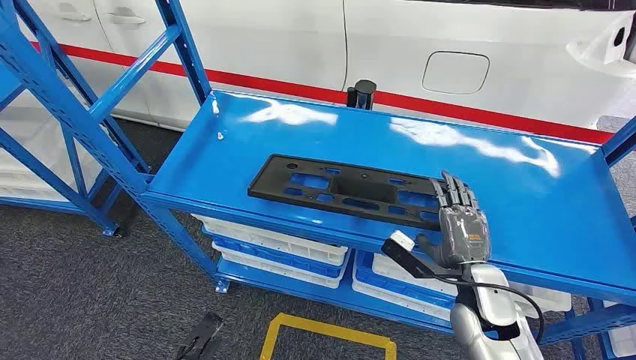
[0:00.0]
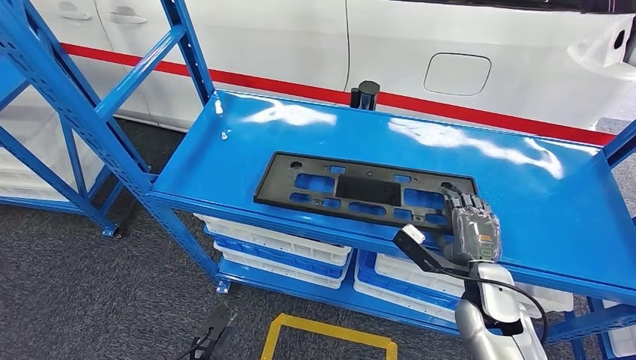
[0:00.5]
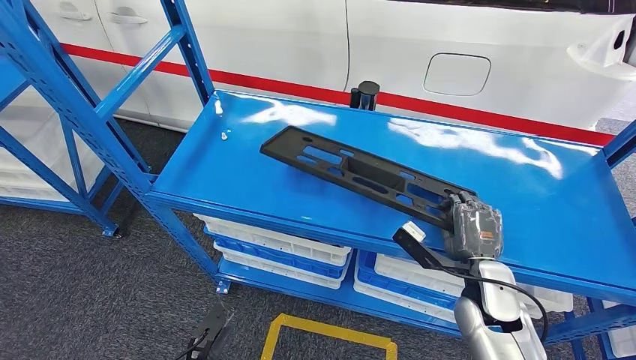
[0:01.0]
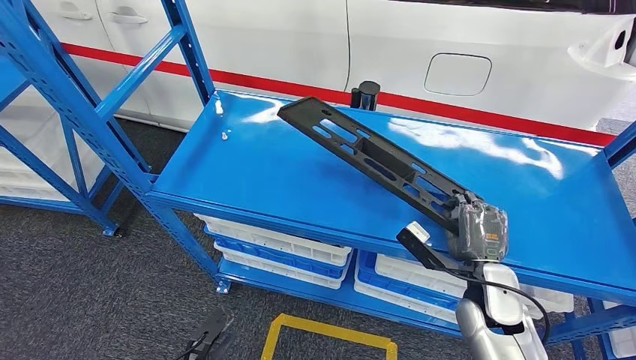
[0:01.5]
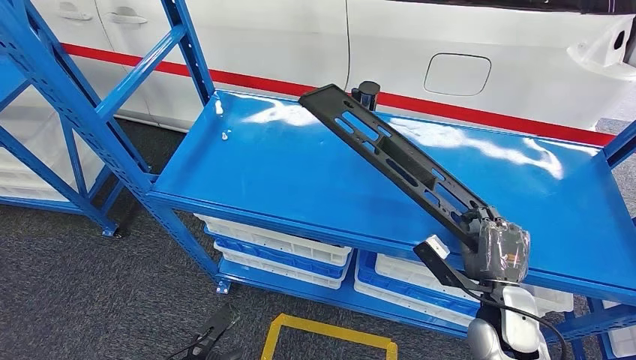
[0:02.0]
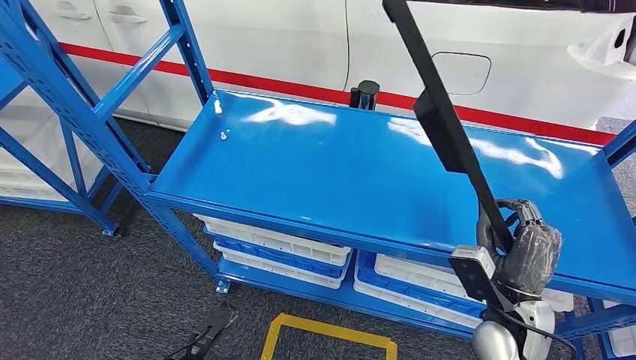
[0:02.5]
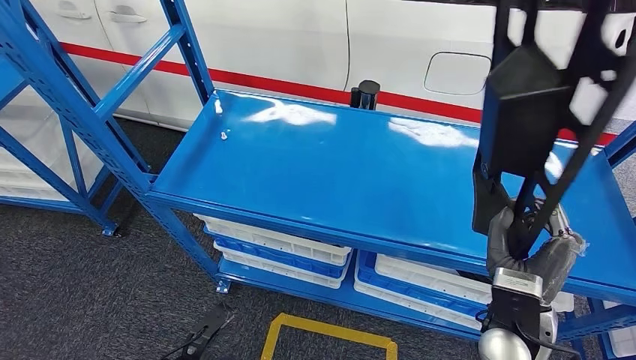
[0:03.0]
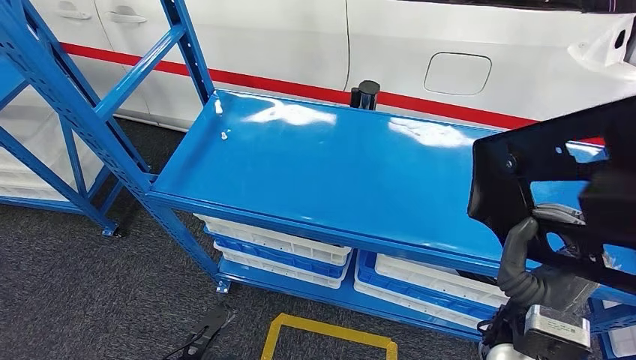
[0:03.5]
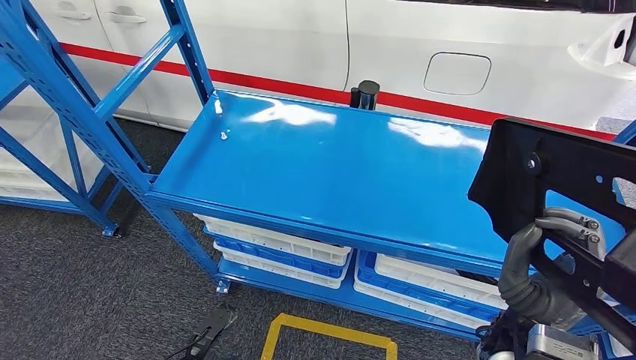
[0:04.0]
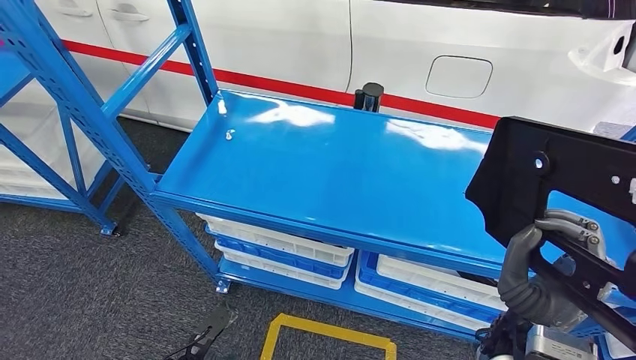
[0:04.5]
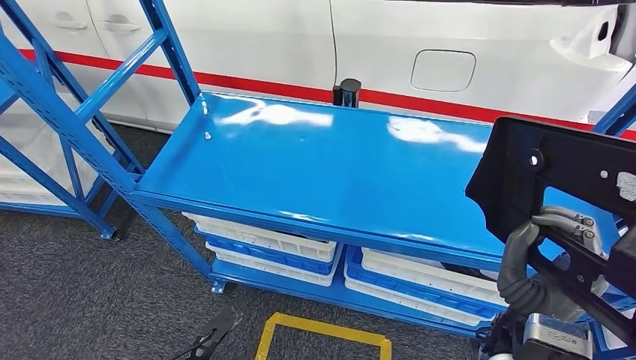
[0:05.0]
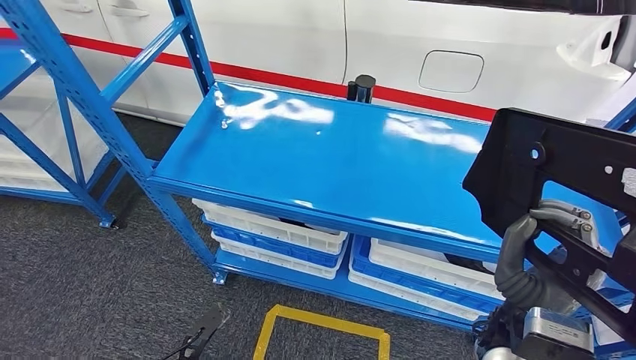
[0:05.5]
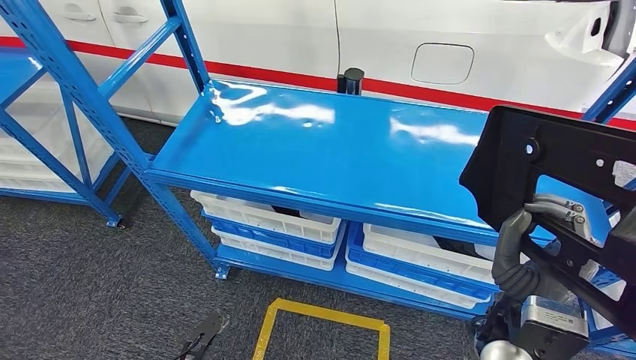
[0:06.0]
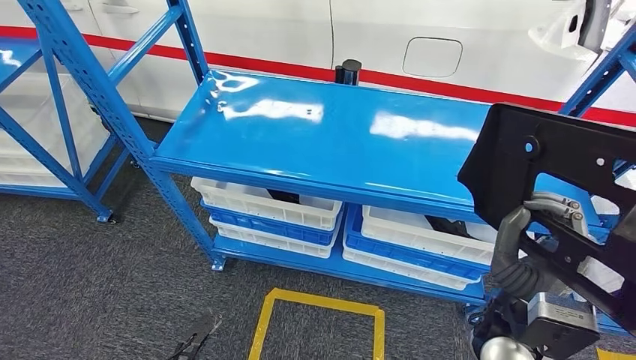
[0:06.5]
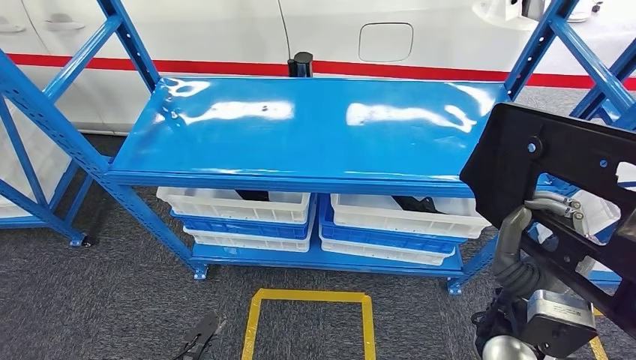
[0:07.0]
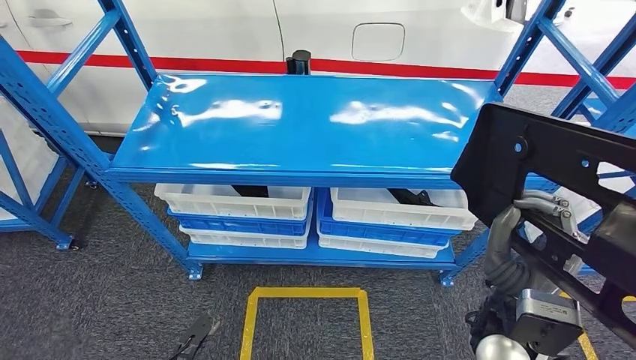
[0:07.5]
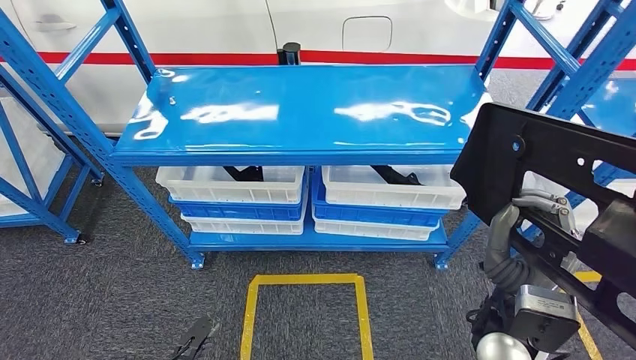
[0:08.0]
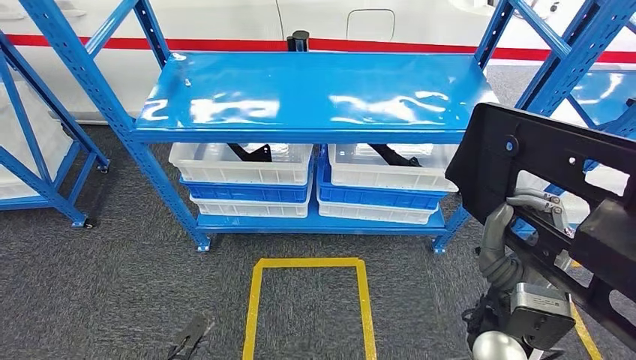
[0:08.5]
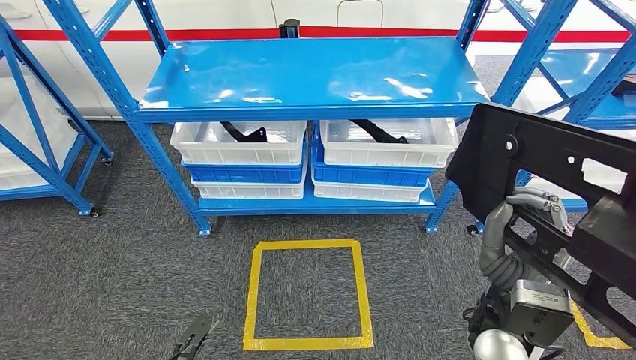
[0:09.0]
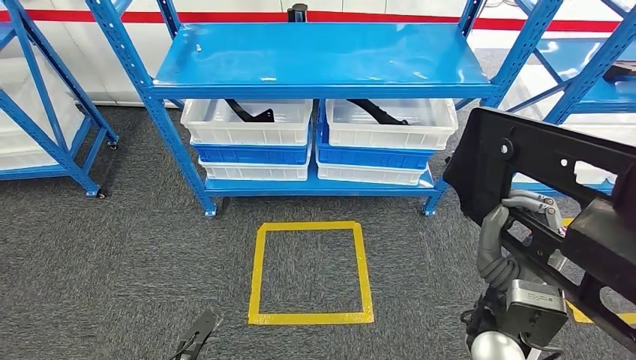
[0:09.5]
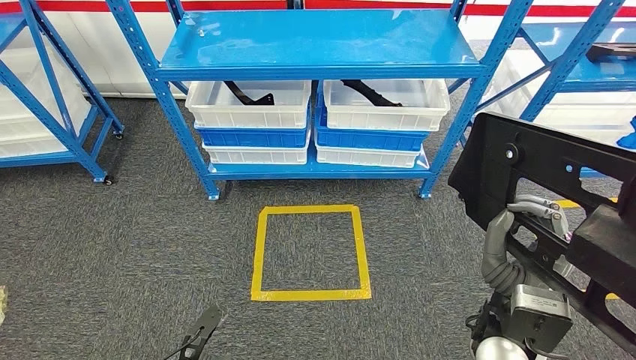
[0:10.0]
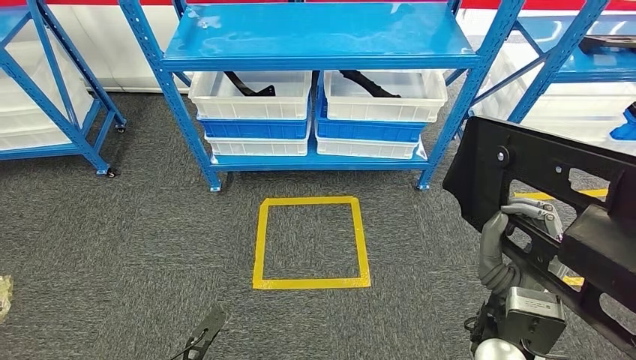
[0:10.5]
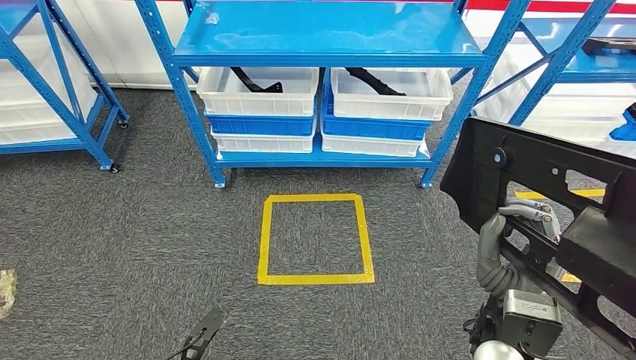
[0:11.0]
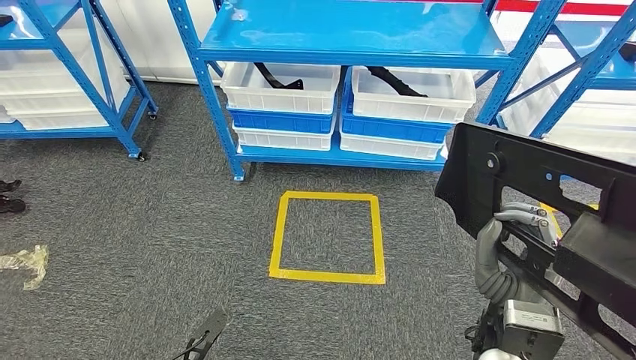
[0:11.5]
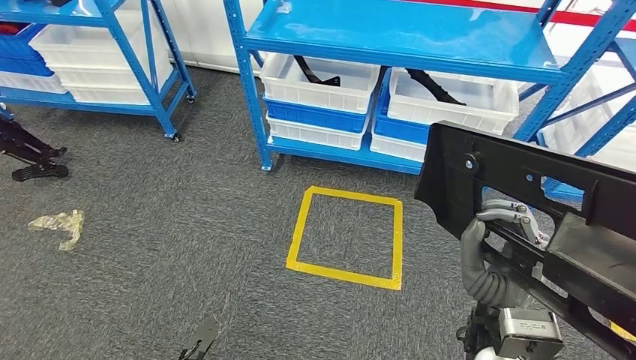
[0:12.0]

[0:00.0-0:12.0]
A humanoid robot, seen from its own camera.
Step, 0:00.0 to 0:10.5: Pick up the large parts from the shelf.
0:02.0 to 0:04.0: The right hand shifts approximately 10 cm upward and backward.

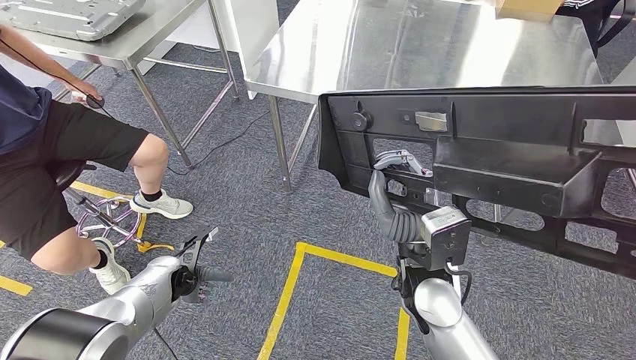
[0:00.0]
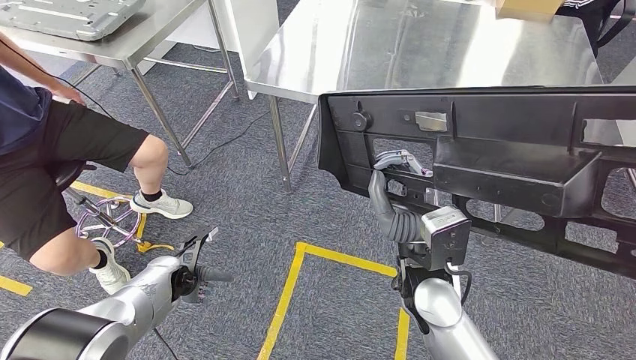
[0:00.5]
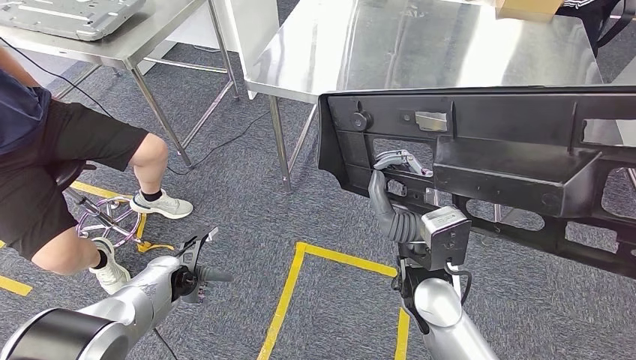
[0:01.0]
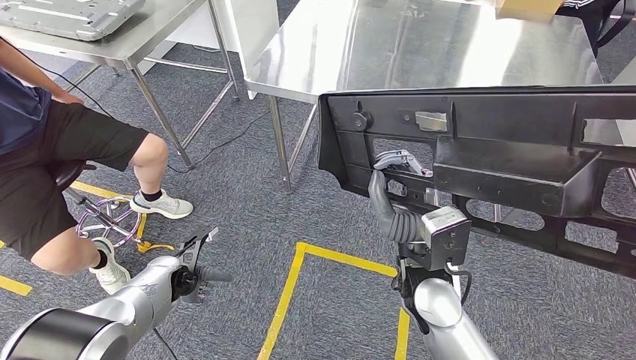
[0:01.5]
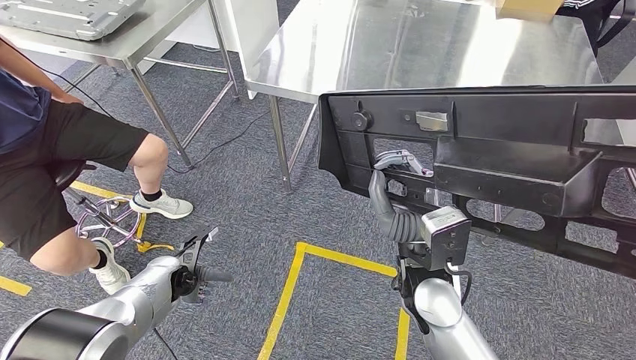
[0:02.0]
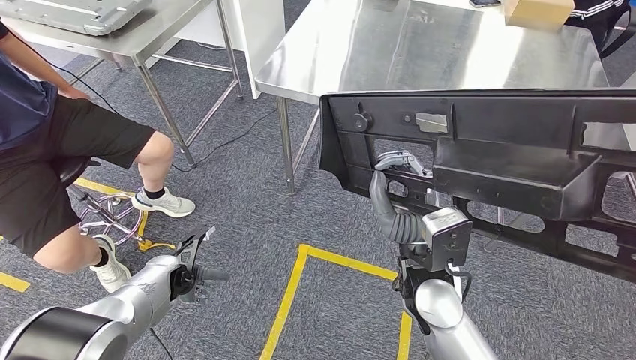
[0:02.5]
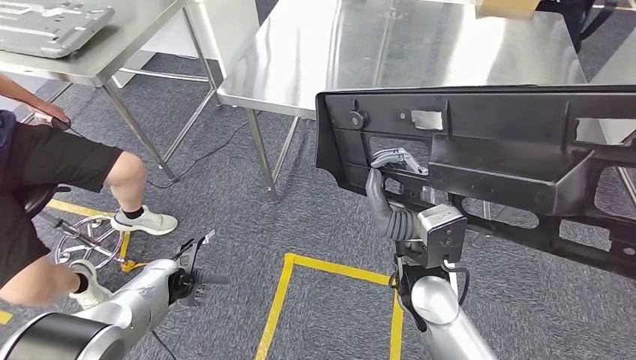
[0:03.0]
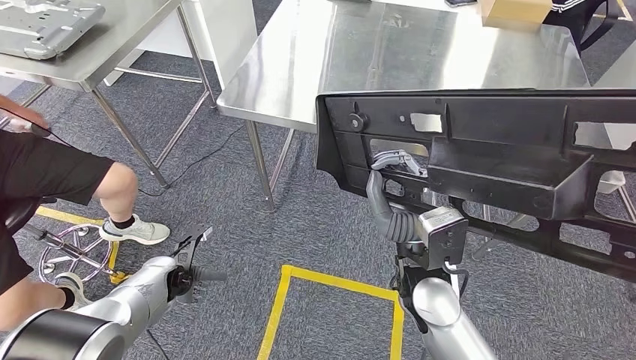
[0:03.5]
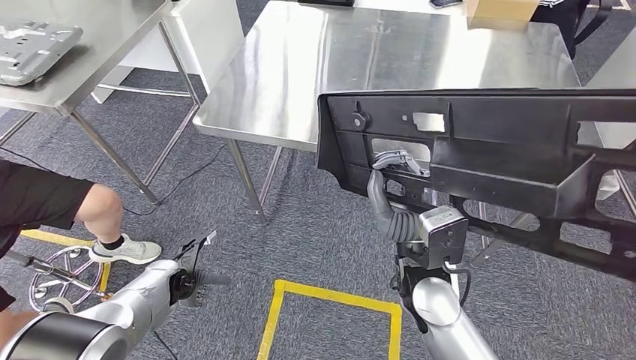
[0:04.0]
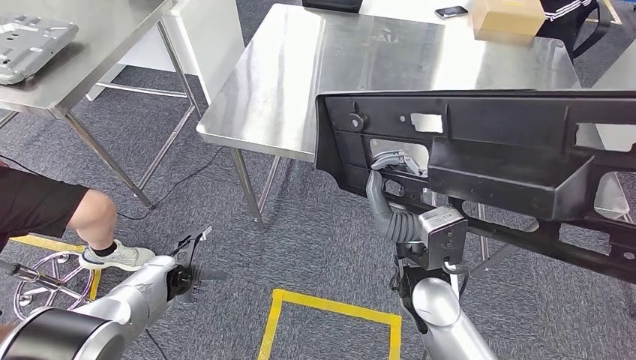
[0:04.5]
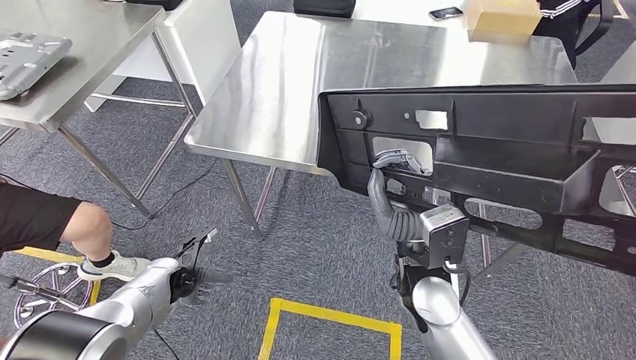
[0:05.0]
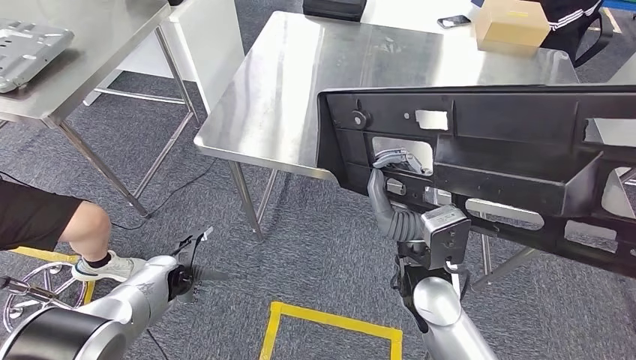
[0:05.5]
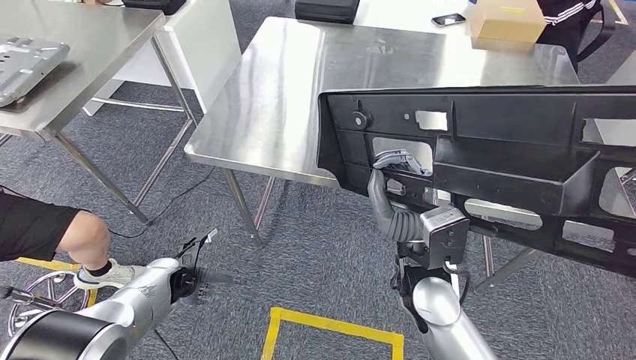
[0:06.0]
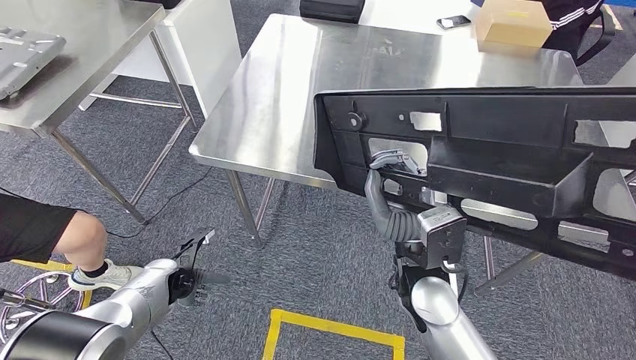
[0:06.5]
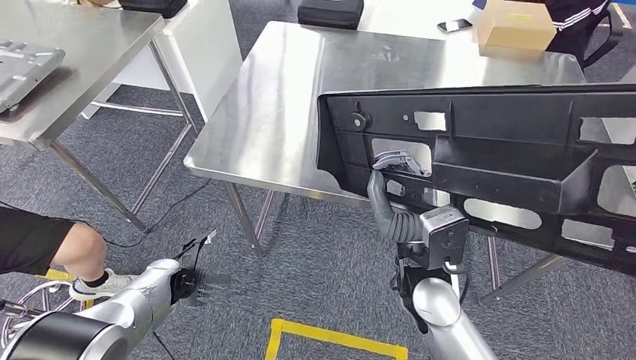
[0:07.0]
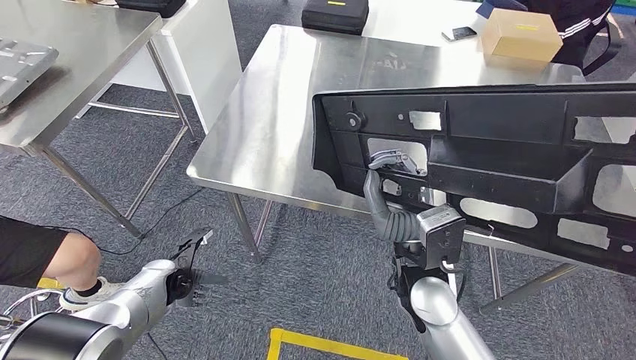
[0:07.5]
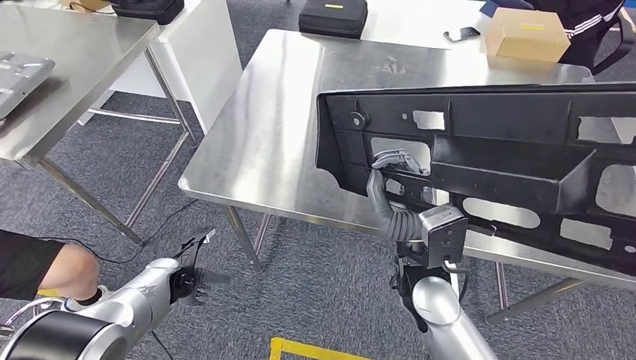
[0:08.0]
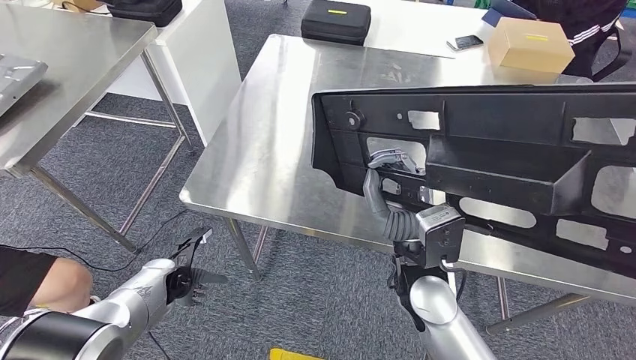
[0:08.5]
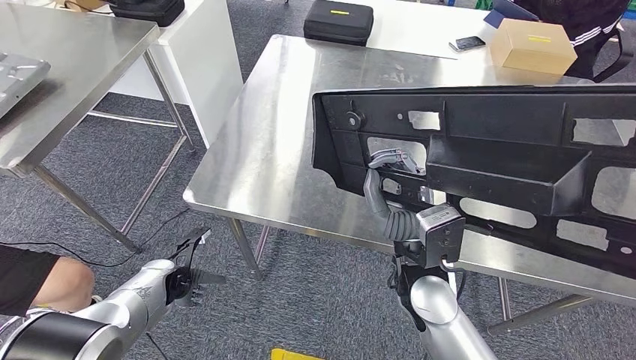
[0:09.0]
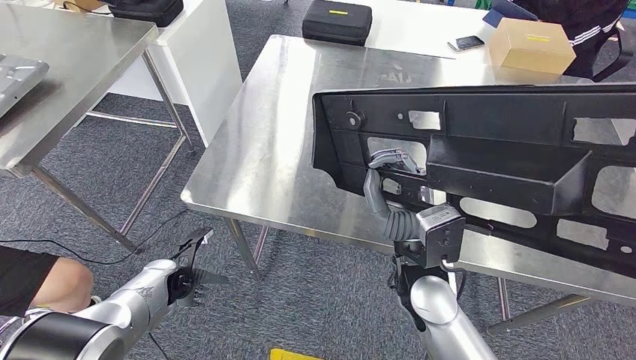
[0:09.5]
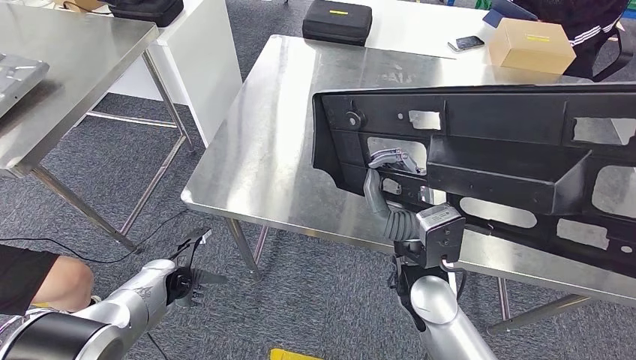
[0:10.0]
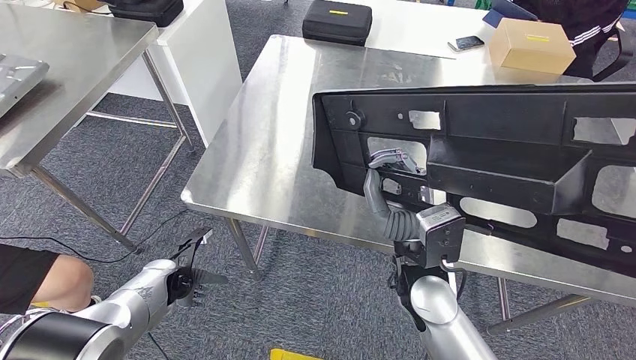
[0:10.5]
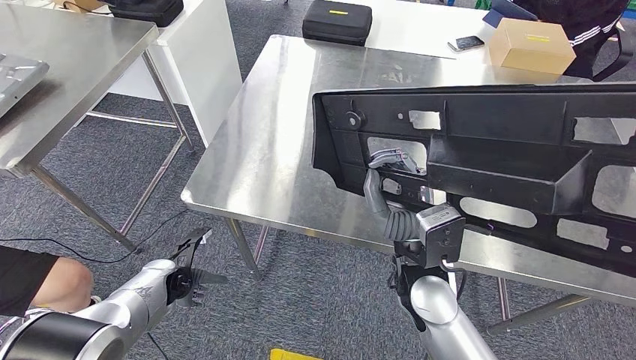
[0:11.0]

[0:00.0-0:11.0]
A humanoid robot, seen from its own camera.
Step, 0:00.0 to 0:05.0: Move the large parts to the workbench.
0:00.0 to 0:02.0: The two hands keep their place.
0:09.0 to 0:11.0: Neither hand changes place.
